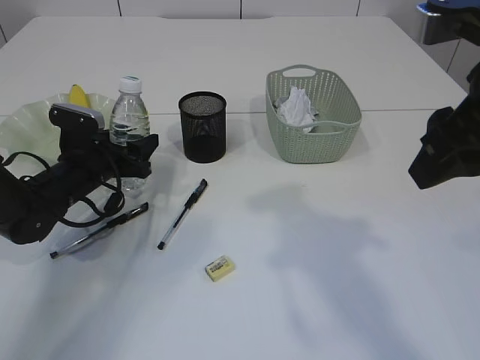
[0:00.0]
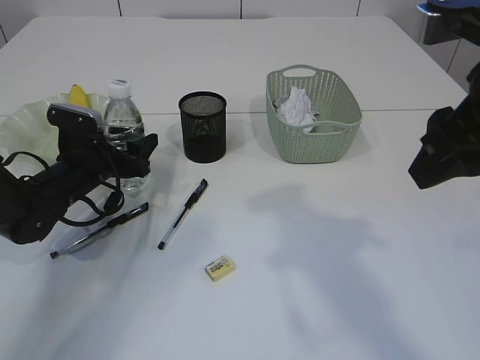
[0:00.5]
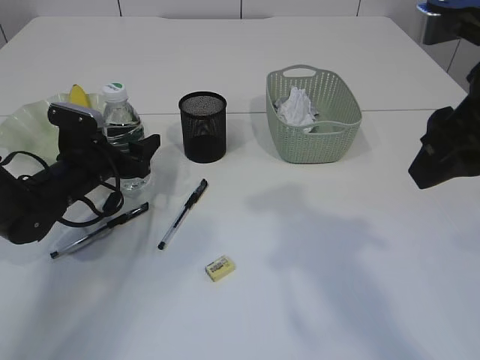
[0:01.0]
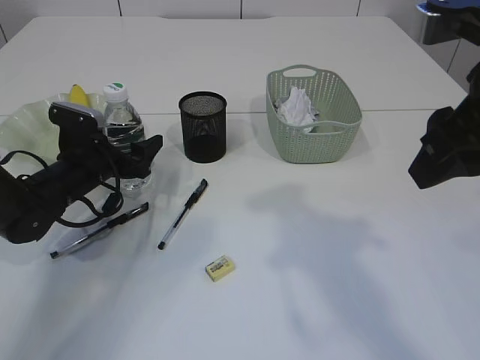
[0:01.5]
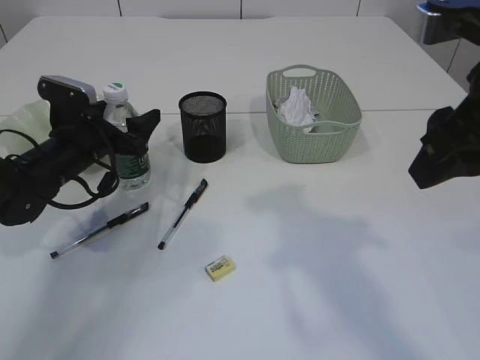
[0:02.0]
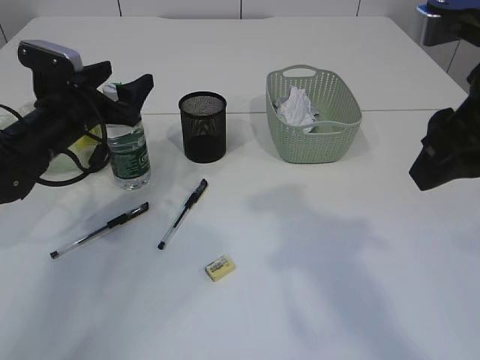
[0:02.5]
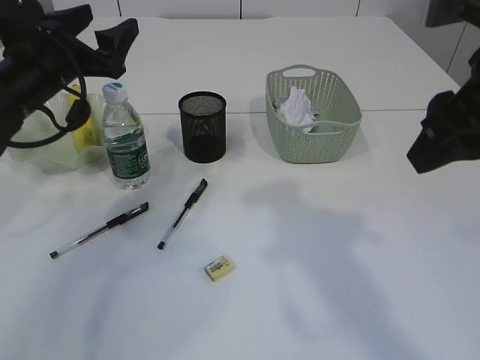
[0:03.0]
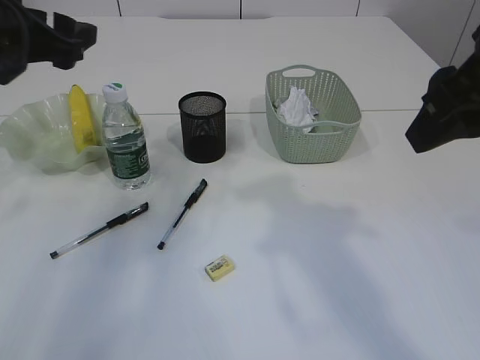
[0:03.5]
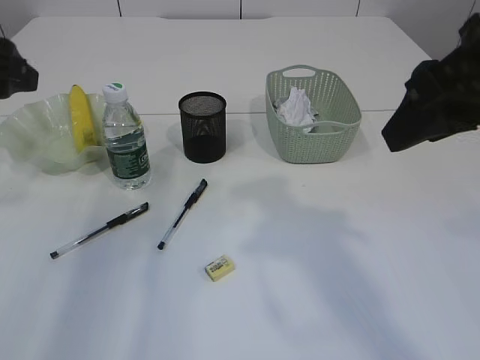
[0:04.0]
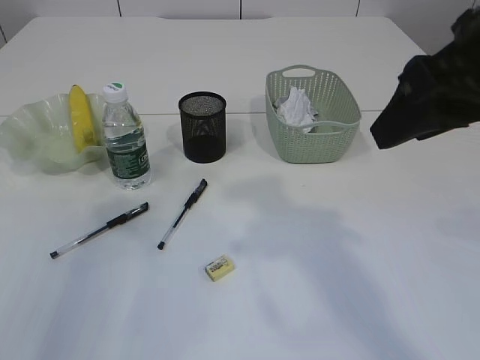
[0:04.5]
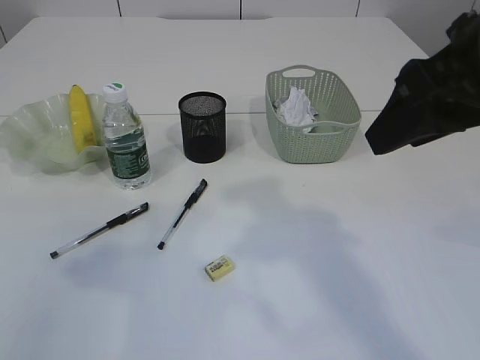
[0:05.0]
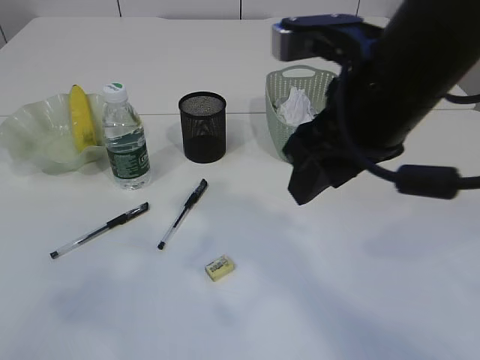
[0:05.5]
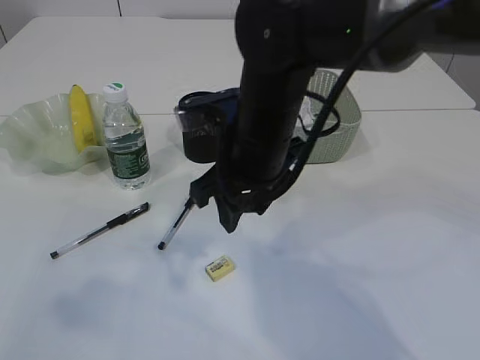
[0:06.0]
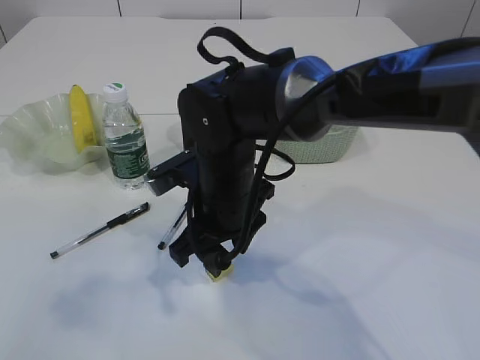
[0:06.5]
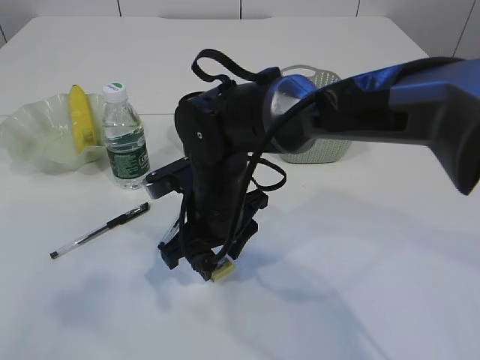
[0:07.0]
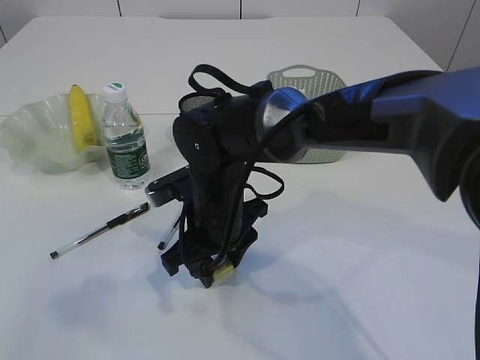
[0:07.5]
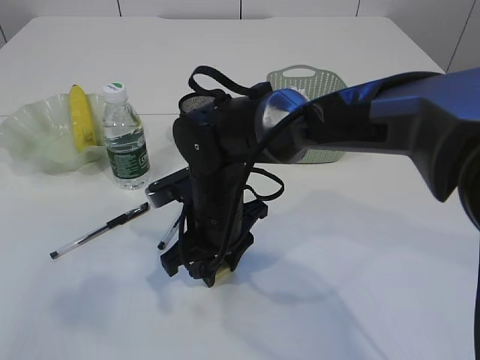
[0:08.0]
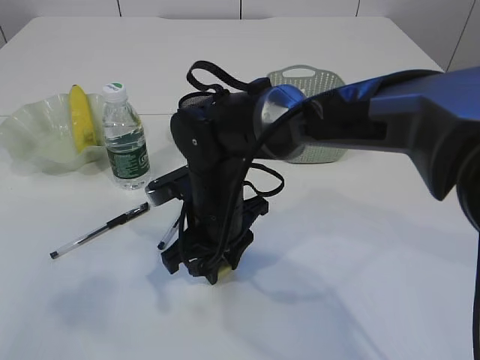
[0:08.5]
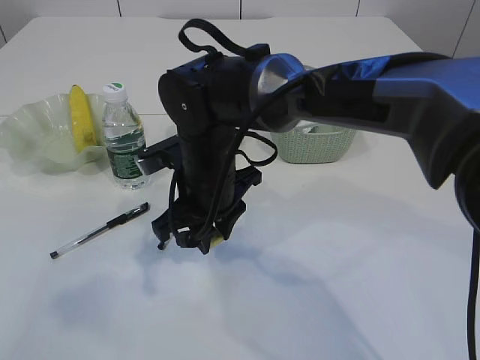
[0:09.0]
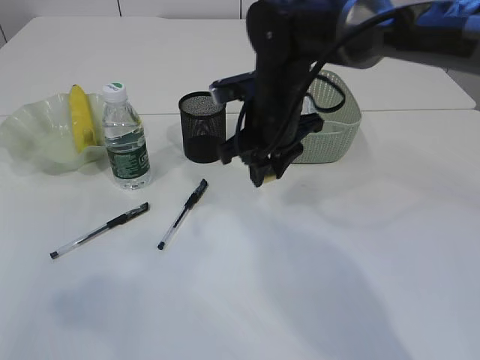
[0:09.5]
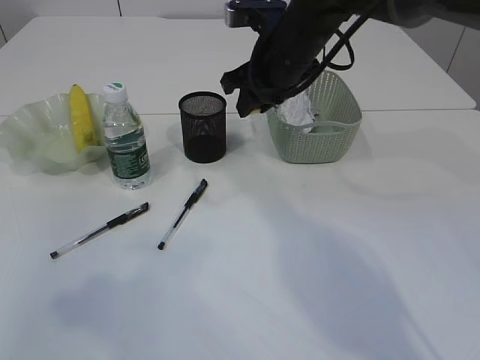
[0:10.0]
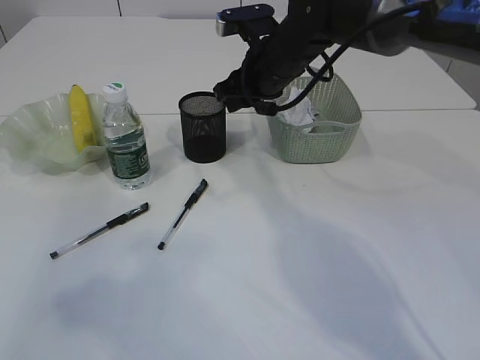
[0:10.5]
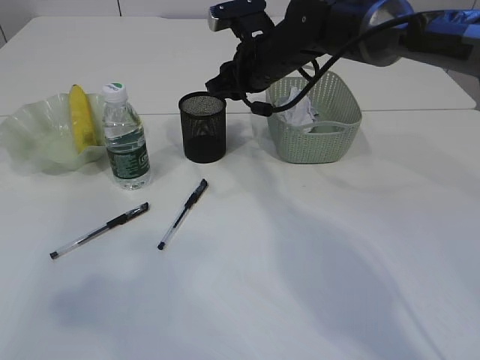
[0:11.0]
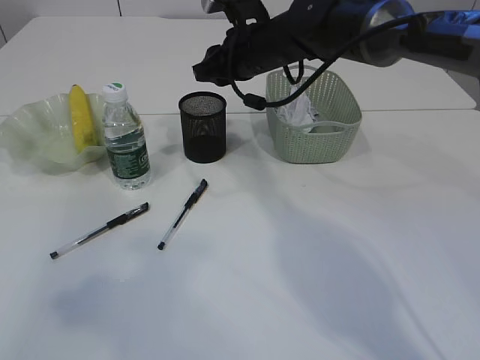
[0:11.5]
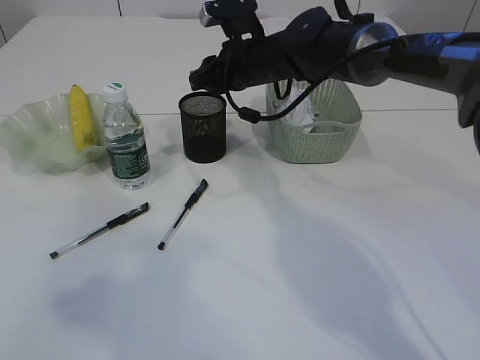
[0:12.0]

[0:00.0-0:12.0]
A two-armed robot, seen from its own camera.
Step, 0:00.0 to 0:02.5: Place the bottle.
Step, 0:03.0 to 0:09.0: Pick up the eraser.
0:00.0 to 0:02.0: The grippers make only small movements.
0:02.0 to 0:04.0: The left gripper is displaced upward and backward by approximately 25 cm.
0:04.0 to 0:06.0: The right gripper shifts some 20 cm to the left, downward and forward. The left gripper travels backward by roughly 20 cm.
0:06.0 to 0:08.0: The right gripper heads downward, covering roughly 10 cm.
0:08.0 to 0:10.0: The right gripper is displaced upward, forward and to the right by about 20 cm.
0:10.0 to 0:12.0: The right gripper travels forward by approximately 5 cm.

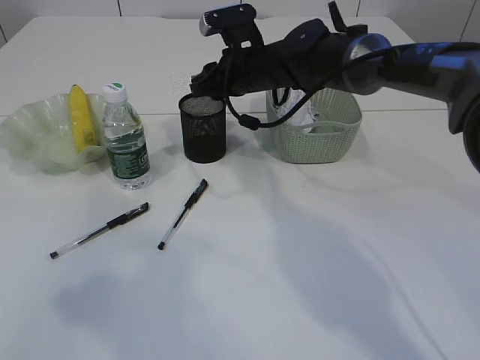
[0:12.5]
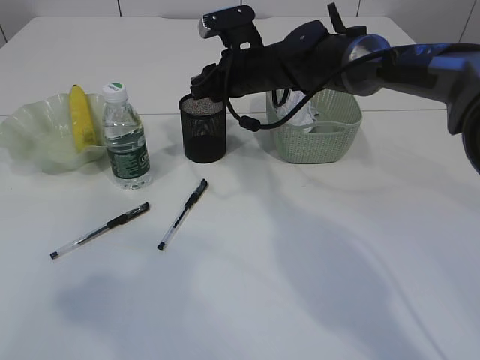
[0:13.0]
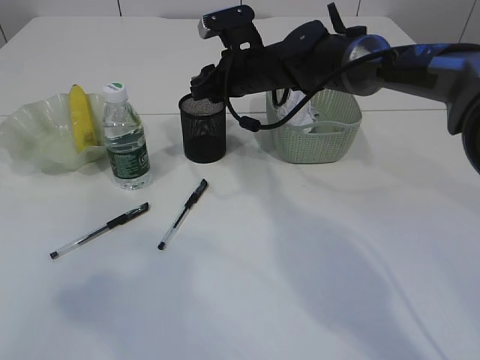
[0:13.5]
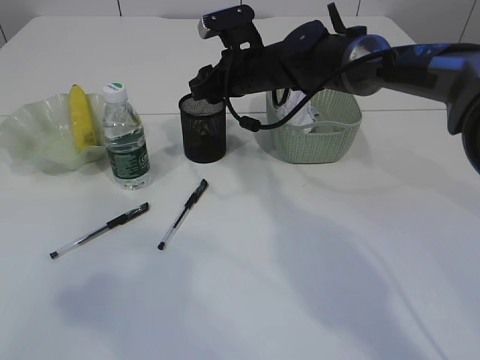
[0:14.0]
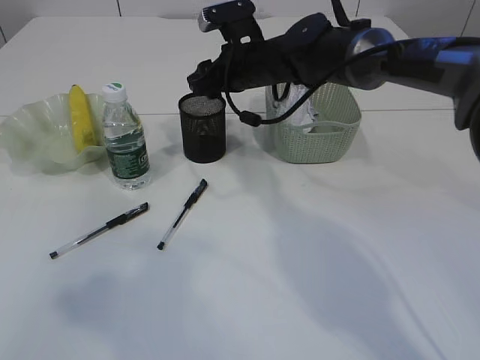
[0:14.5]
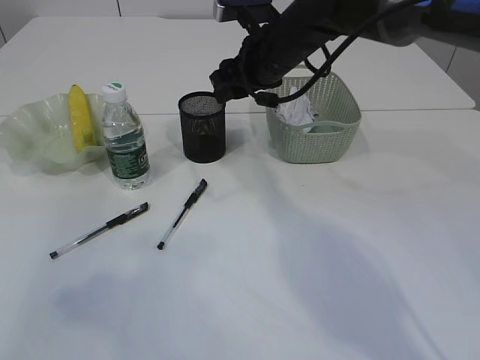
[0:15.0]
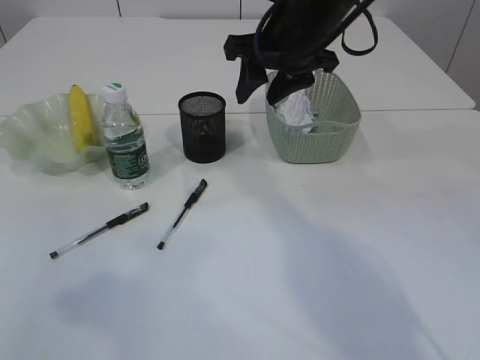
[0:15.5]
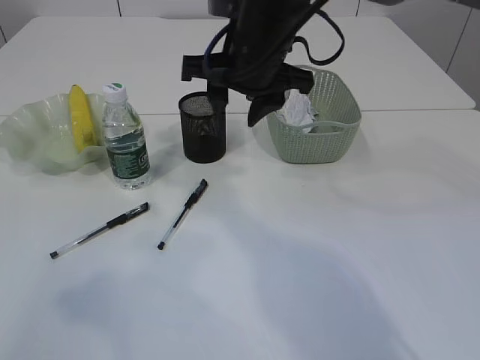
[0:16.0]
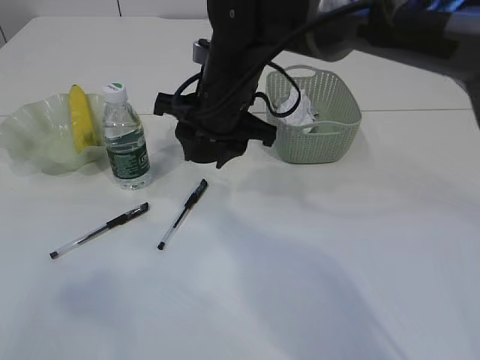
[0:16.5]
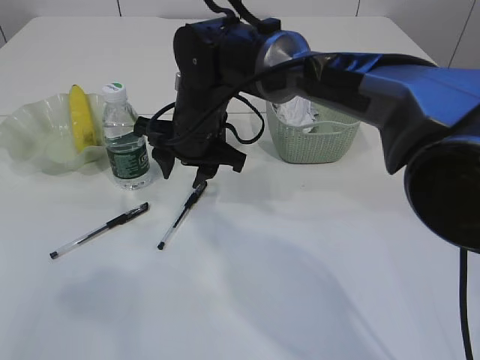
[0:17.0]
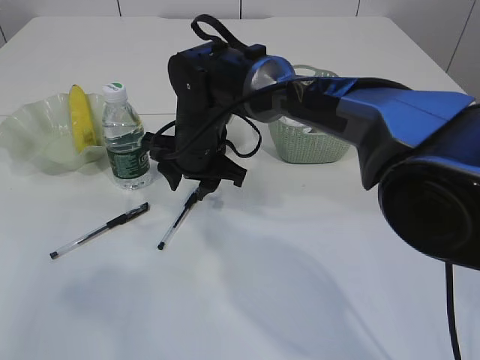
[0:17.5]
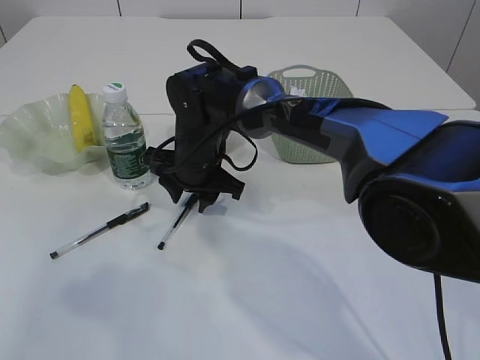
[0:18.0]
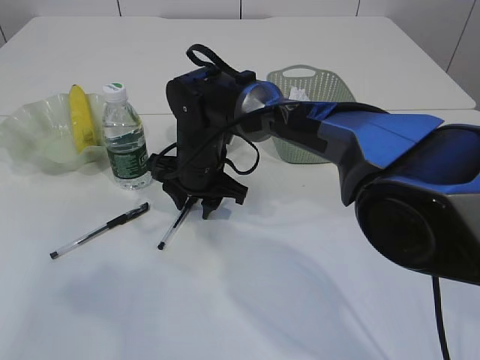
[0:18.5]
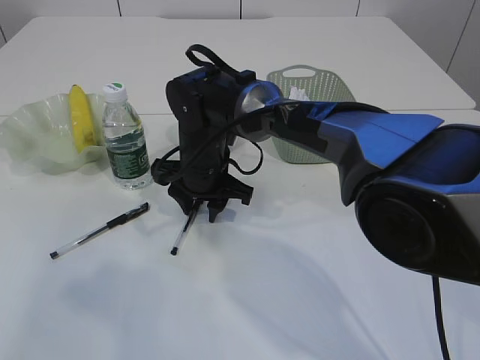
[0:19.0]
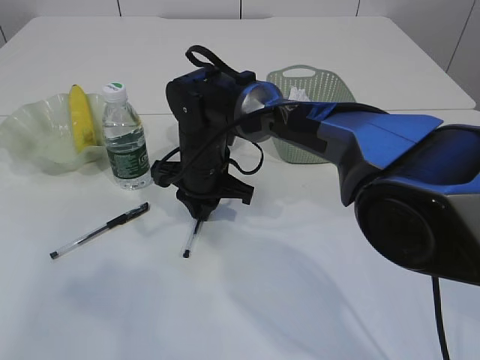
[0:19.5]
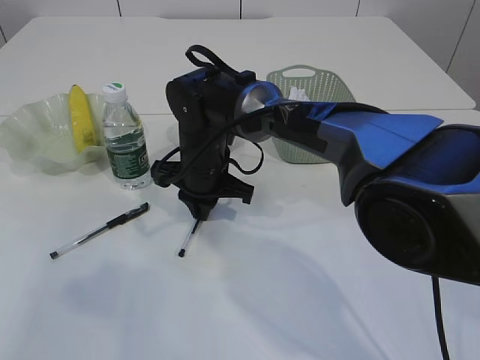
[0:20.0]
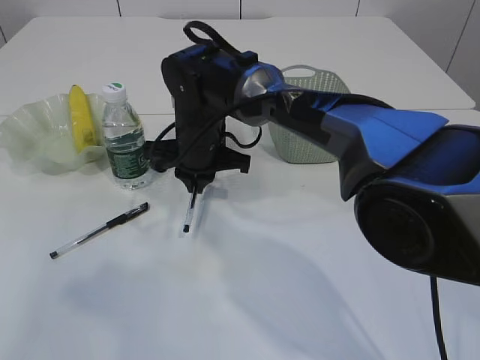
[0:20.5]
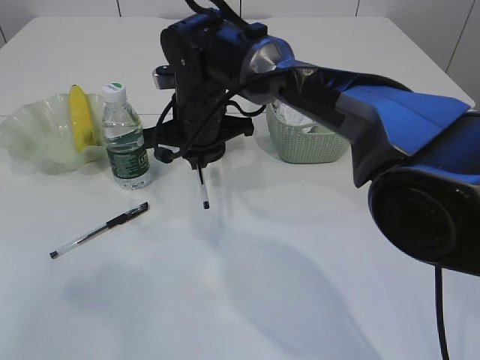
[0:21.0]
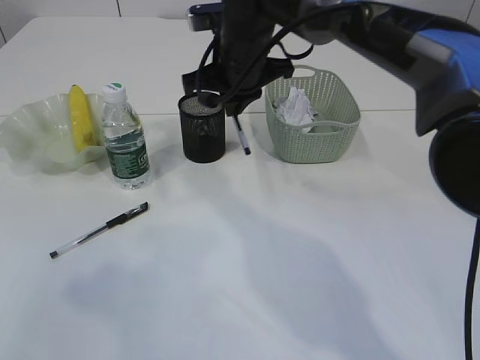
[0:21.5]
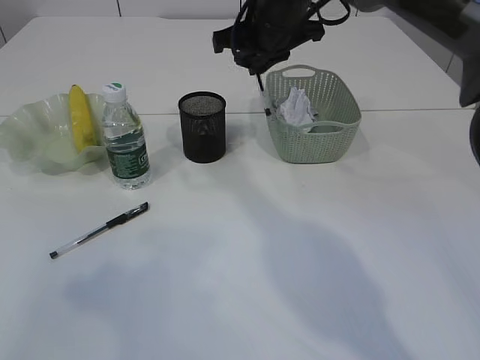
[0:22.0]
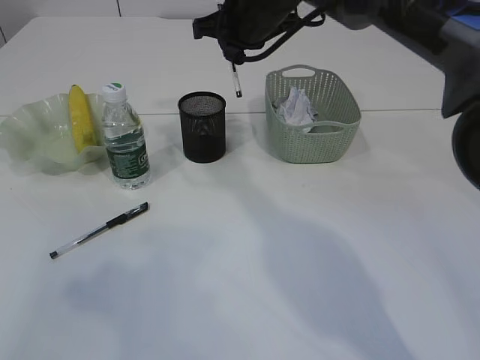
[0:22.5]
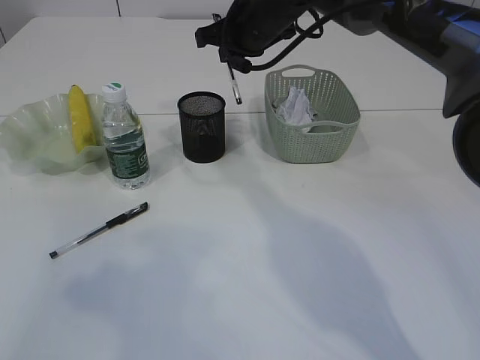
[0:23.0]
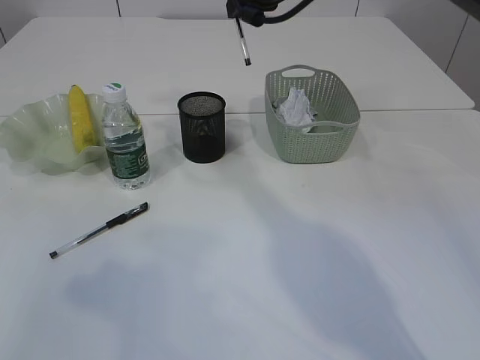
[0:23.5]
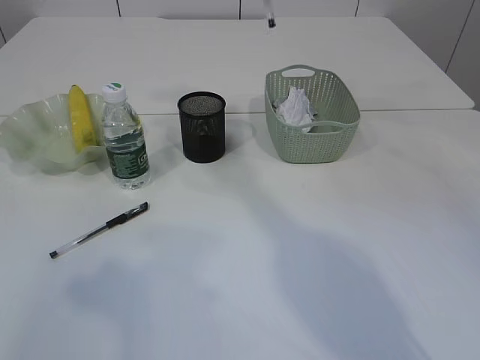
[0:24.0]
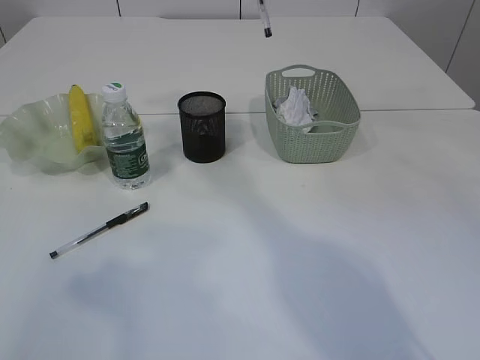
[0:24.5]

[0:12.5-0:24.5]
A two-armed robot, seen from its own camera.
Step, 0:12.5 to 0:14.5: Place the eraser into the pen holder.
Step, 0:15.0 to 0:21.0: Pick up the pen with right arm.
0:12.5 to 0:14.5: Both grippers stay put.
0:14.5 to 0:16.5: The right gripper travels backward by about 10 cm.
0:16.5 to 0:18.5: The right gripper goes approximately 10 cm downward.
0:18.5 to 0:20.5: The right gripper closes.
0:20.5 to 0:22.5: The right gripper travels upward, to the right and forward by roughly 15 cm.
0:22.5 to 0:24.5: The right gripper heads upward and backward, covering roughly 15 cm.

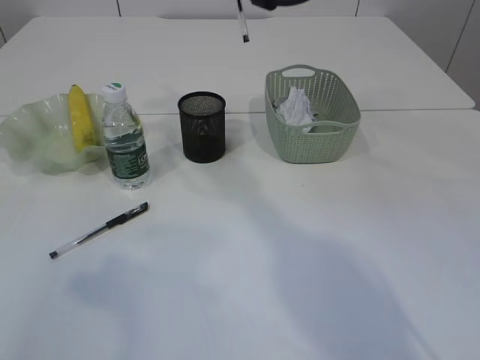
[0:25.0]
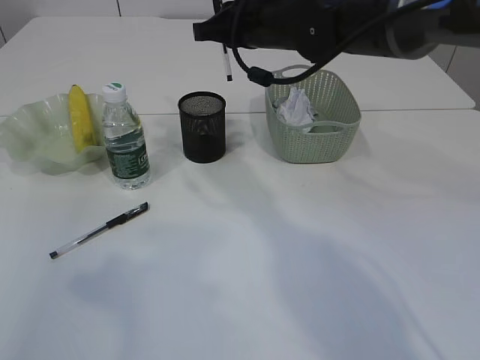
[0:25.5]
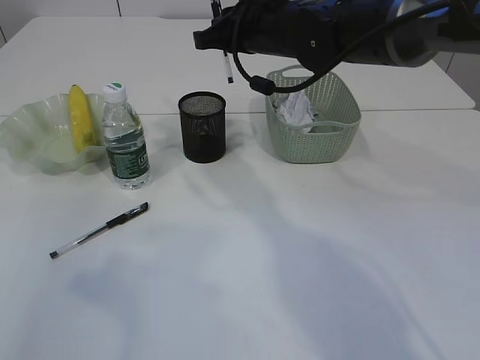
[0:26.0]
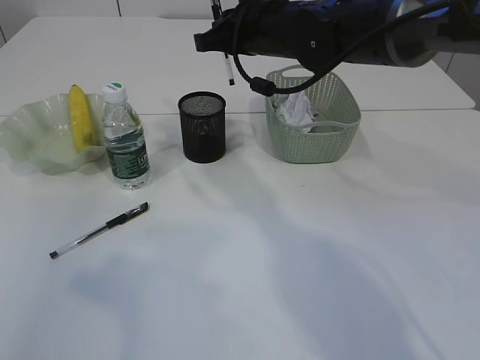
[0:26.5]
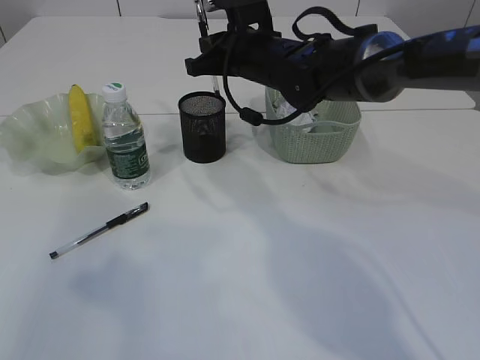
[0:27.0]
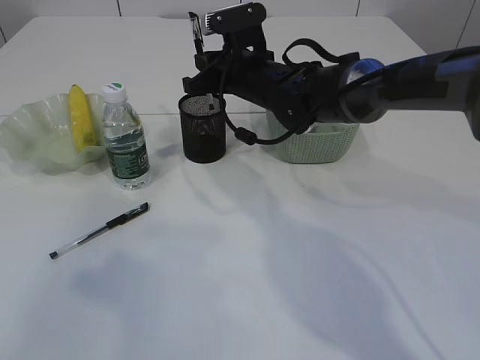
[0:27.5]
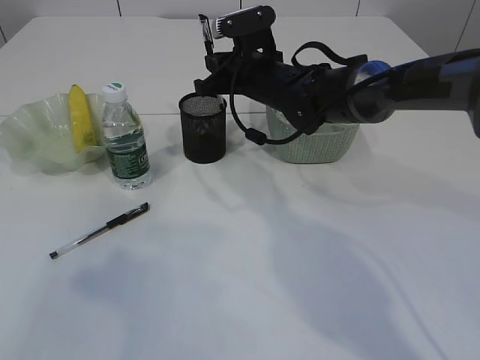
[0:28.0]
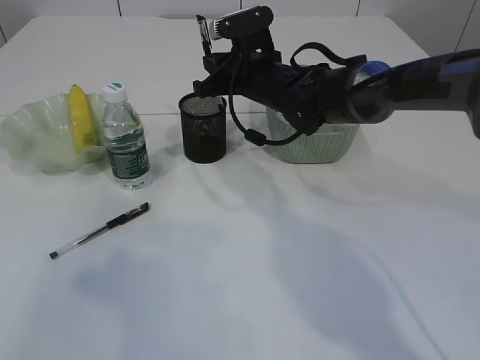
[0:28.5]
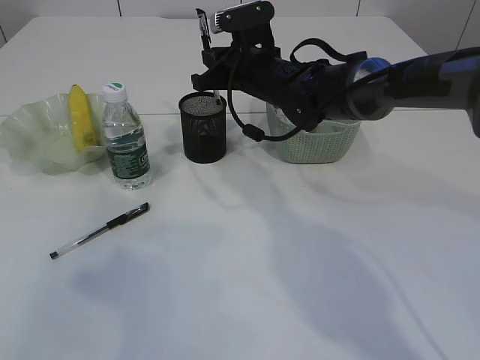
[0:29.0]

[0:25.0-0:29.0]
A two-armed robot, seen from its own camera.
0:25.0 to 0:27.0: The right gripper is displaced downward by roughly 15 cm.
0:27.0 to 0:29.0: There are only small adjustments of the grippers.
